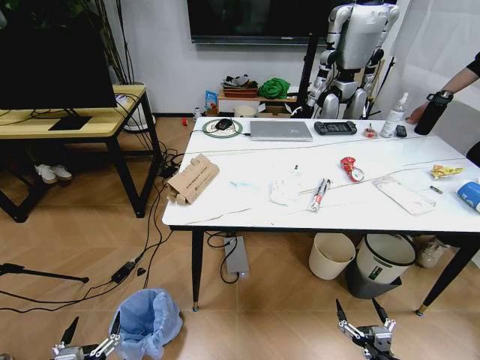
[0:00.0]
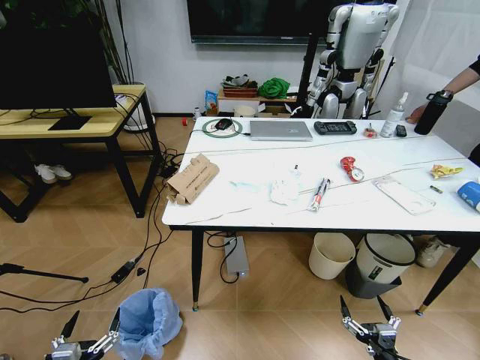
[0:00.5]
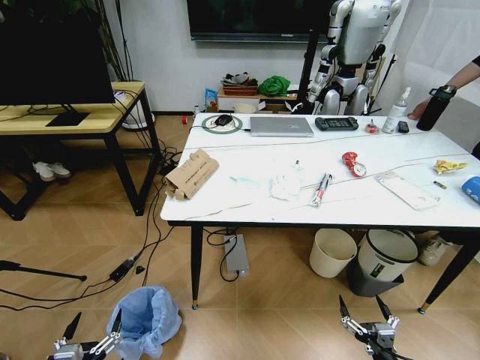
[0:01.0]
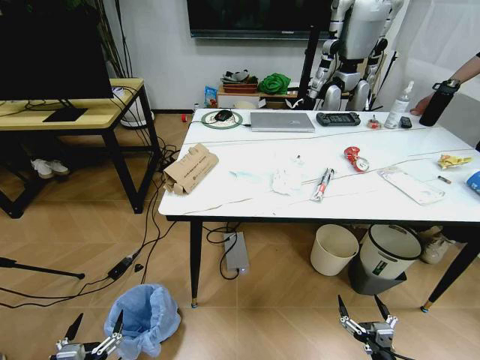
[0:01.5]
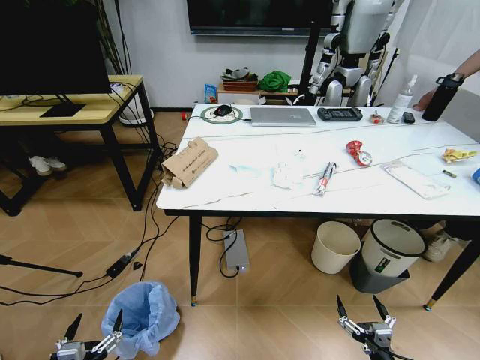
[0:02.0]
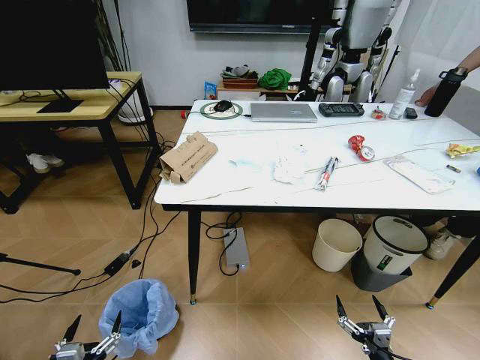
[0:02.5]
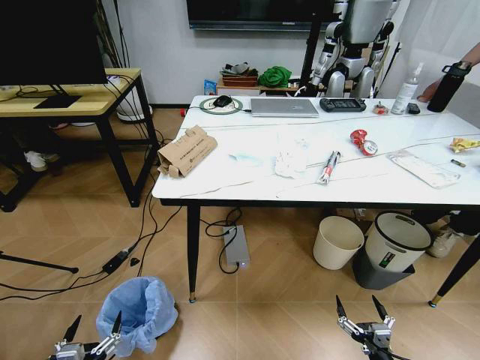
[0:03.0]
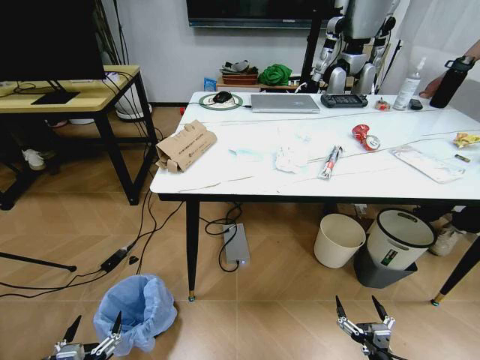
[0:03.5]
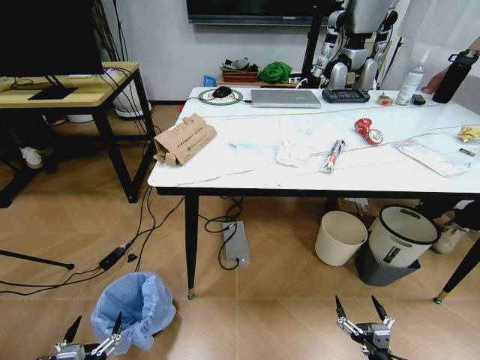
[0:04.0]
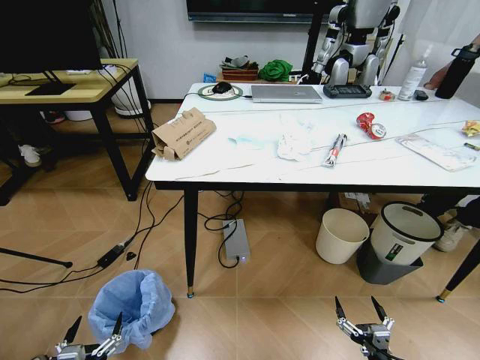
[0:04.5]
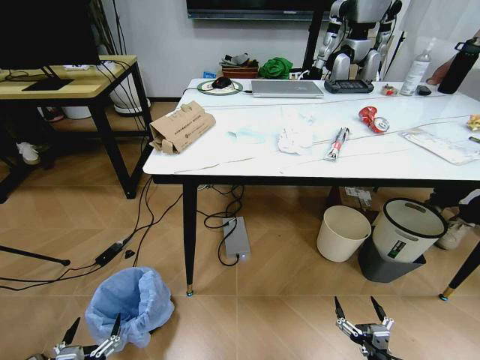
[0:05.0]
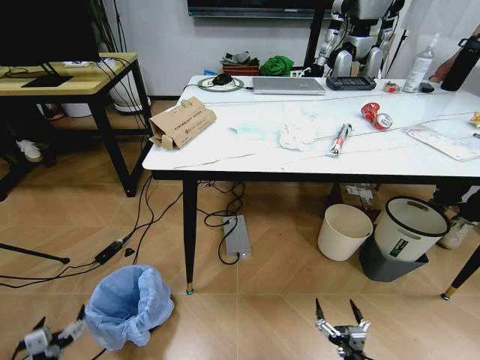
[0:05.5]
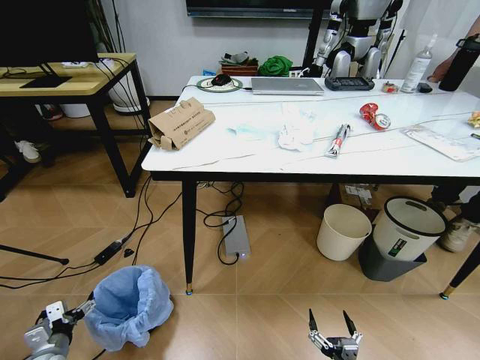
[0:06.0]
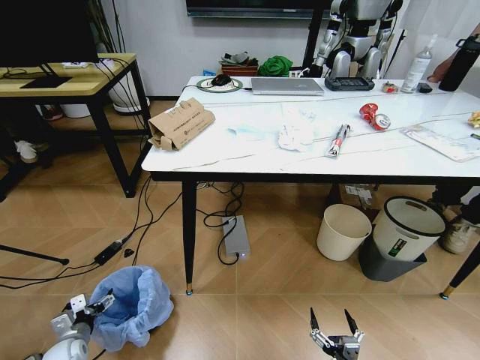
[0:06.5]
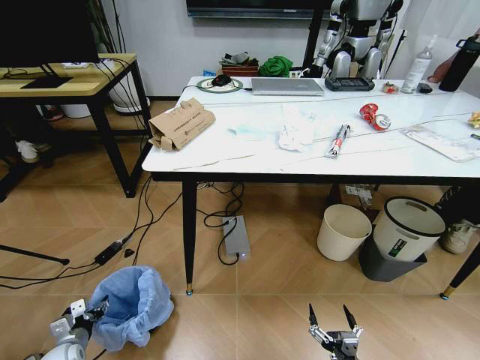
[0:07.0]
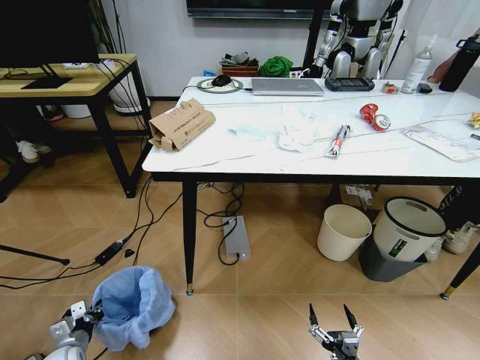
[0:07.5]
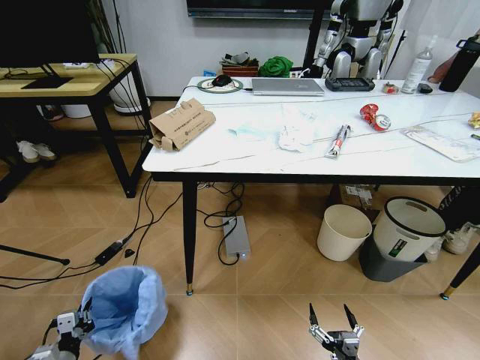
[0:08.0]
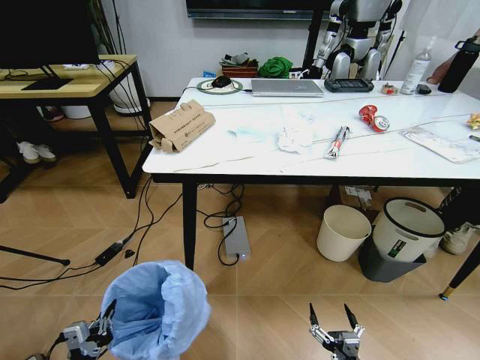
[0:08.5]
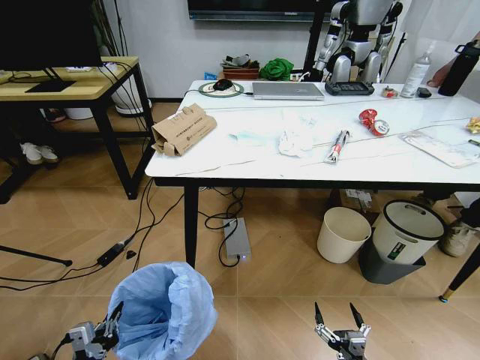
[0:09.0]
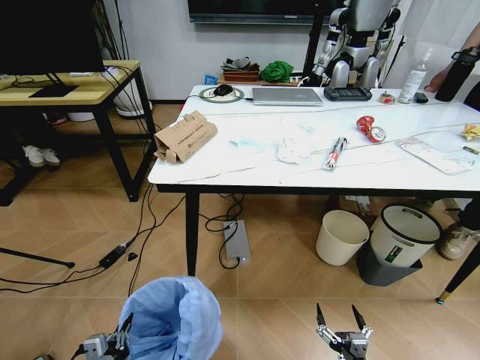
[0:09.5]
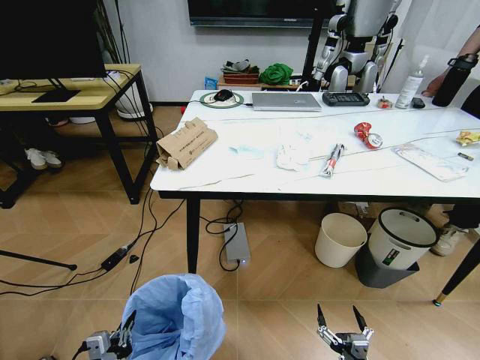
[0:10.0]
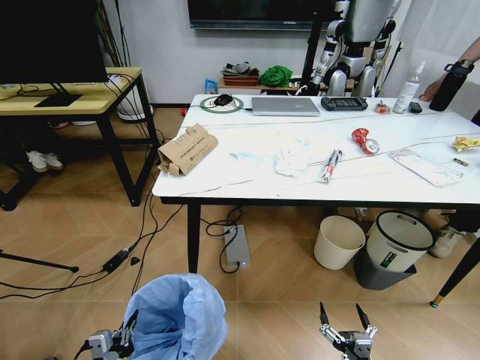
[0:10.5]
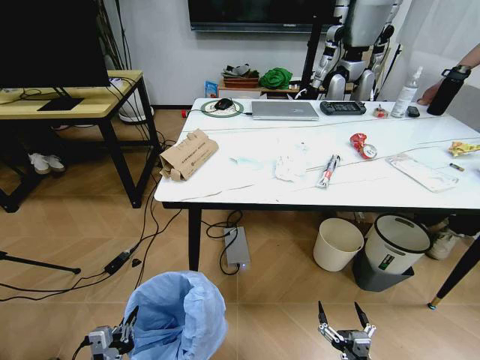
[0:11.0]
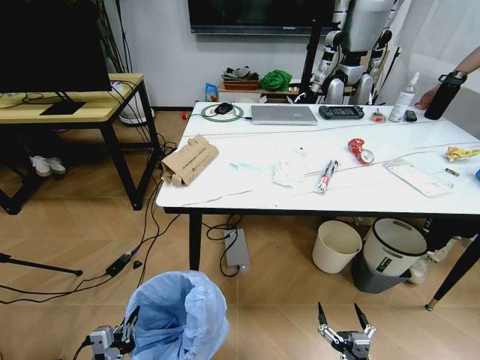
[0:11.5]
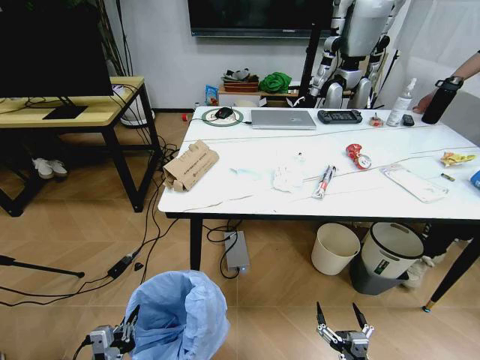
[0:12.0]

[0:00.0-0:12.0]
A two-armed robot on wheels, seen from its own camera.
Task of the whole recording: Pick up the trash bin and place the trash from the table into it.
0:04.0 to 0:06.0: The right gripper heads to the left, covering roughly 10 cm; the left gripper is displaced forward and to the left by approximately 20 cm.
0:06.0 to 0:08.0: The left gripper changes place by roughly 5 cm, and closes.
0:08.0 to 0:10.0: The left gripper shifts some 20 cm to the right, upward and backward.

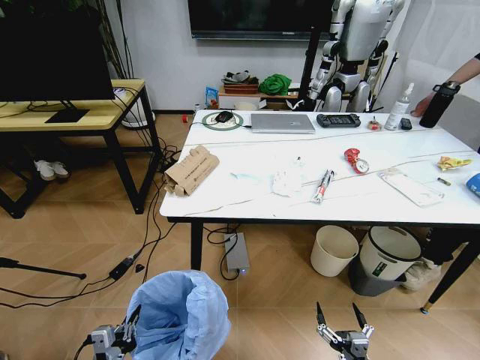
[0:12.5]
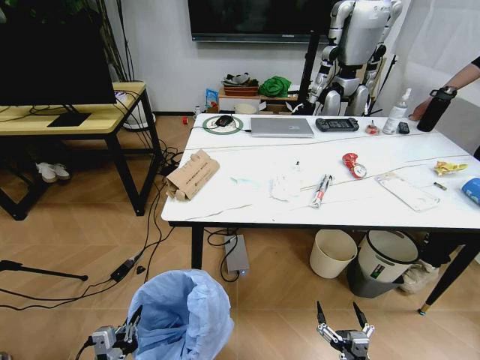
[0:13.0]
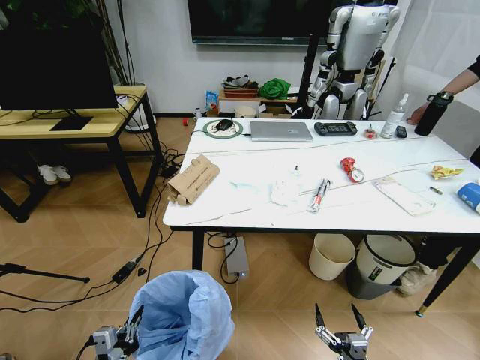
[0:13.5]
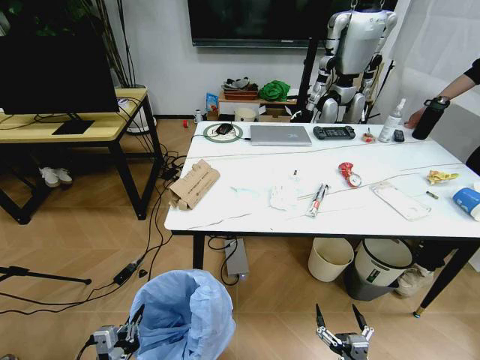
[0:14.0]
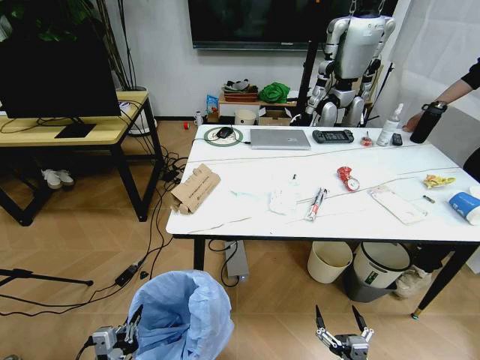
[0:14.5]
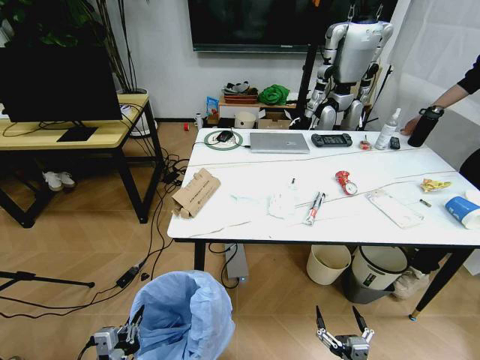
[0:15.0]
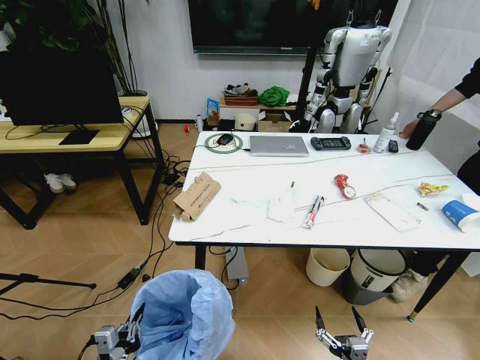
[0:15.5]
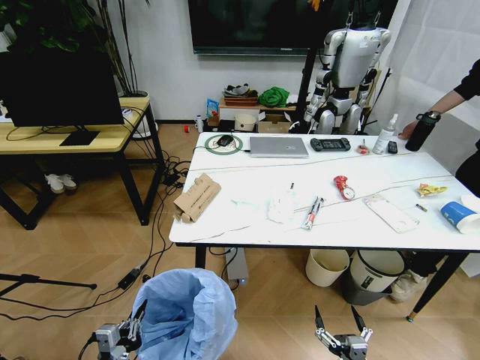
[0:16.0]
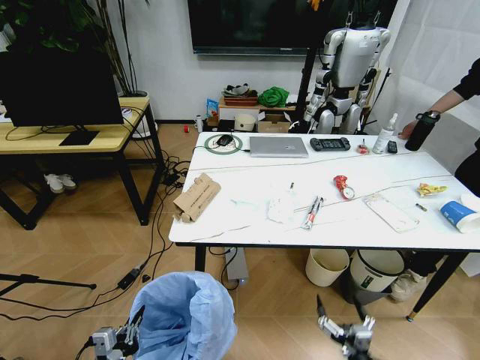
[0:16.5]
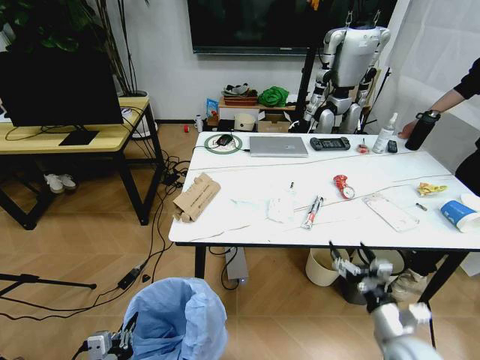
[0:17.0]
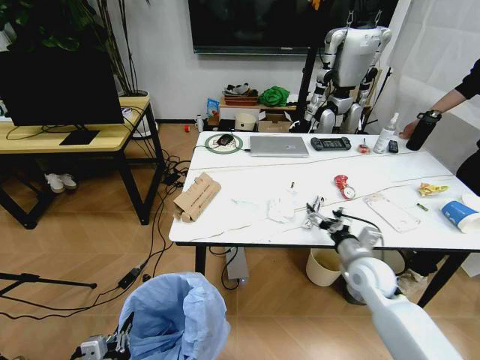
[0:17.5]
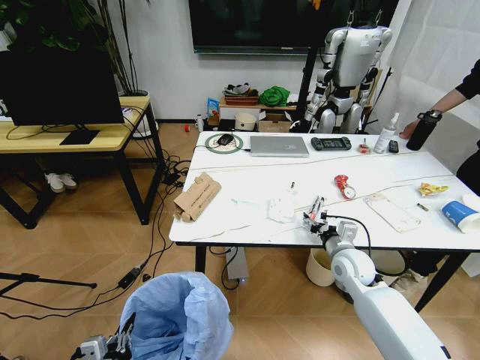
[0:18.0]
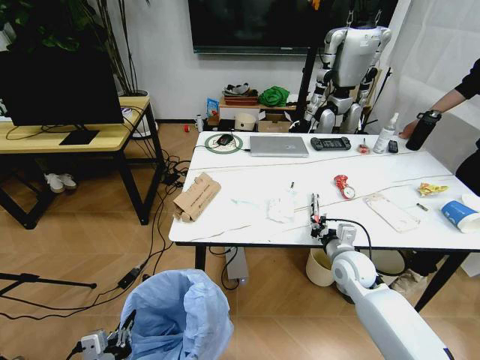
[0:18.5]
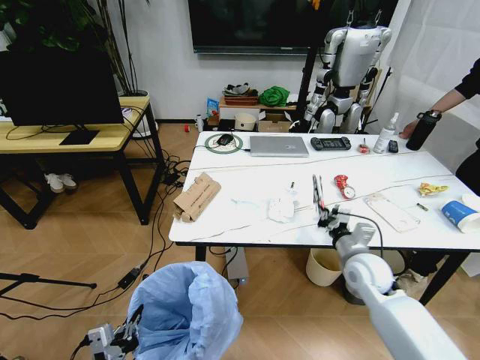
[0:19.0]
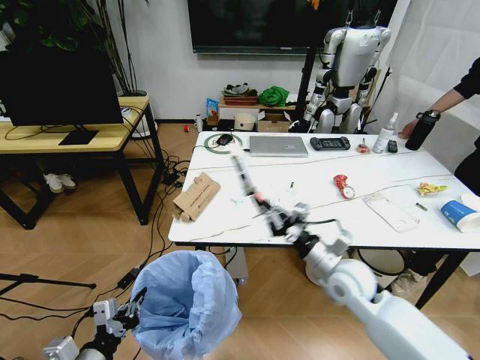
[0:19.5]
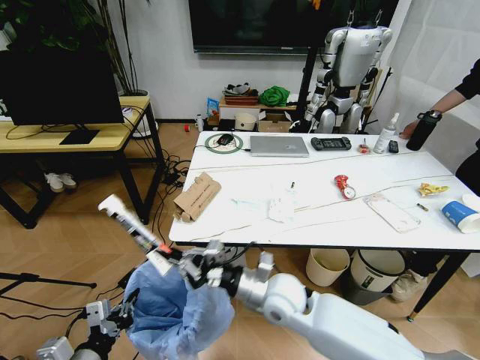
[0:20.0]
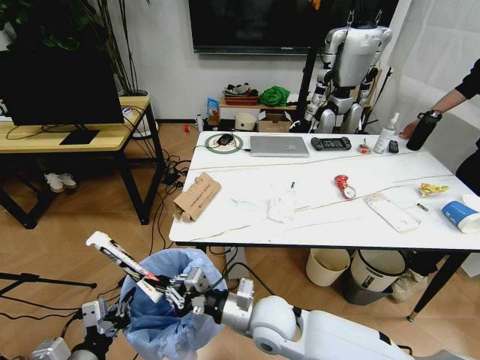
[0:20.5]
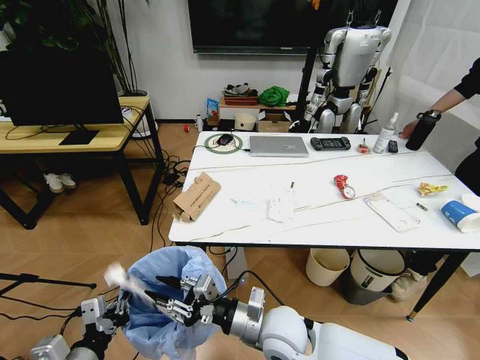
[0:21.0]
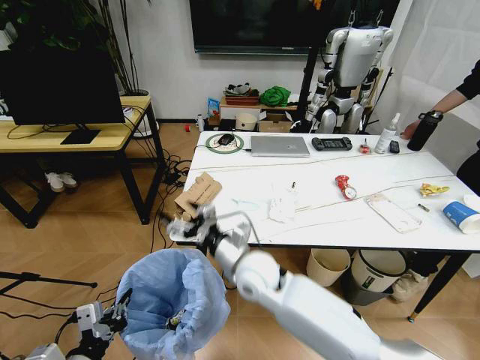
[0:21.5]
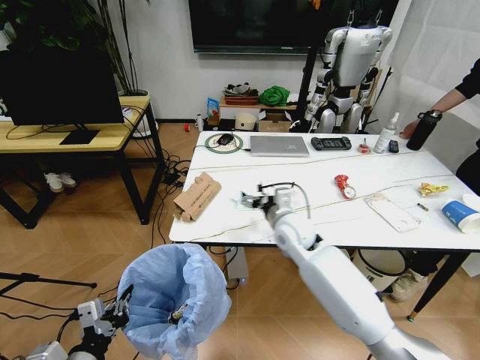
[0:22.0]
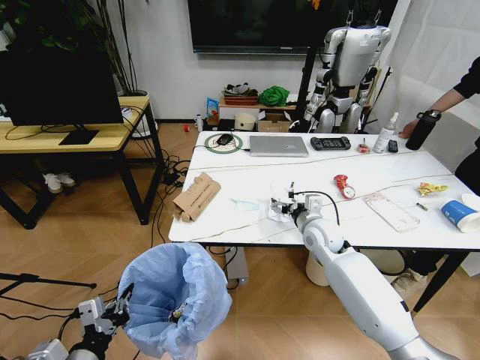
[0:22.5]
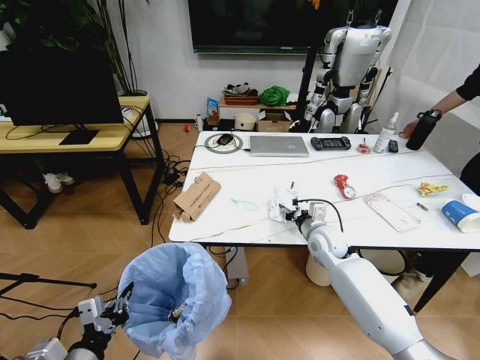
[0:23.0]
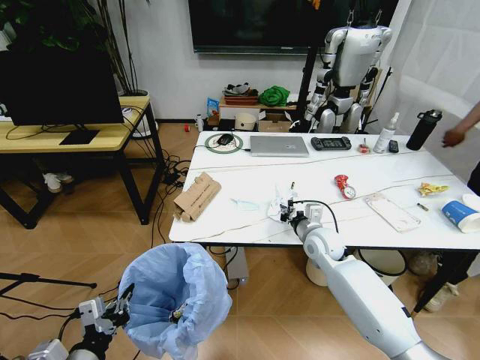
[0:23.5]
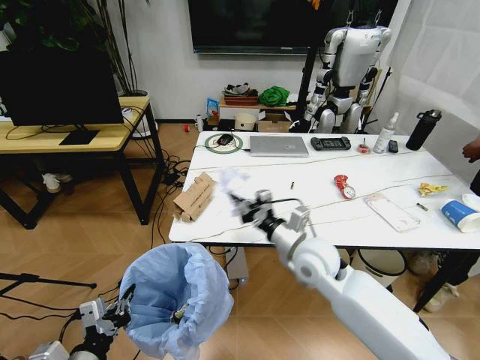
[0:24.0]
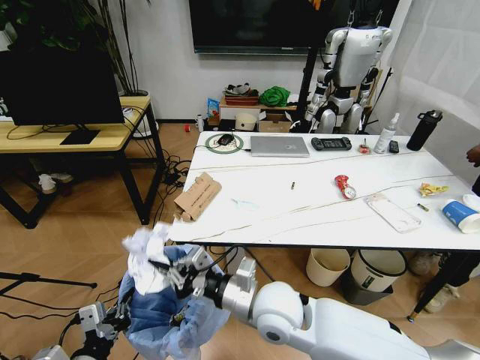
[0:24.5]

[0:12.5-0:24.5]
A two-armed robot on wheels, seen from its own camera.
Task of the whole recording: Pick up the trash bin and place the trash from the table into it.
0:16.5 to 0:18.5: The right gripper travels forward and upward by about 35 cm, and closes up. The left gripper ends up some 5 cm from where it was.
0:18.5 to 0:20.5: The right gripper goes about 25 cm to the left and backward; the left gripper shifts roughly 5 cm forward.
0:20.5 to 0:22.5: The right gripper travels forward and to the right by approximately 25 cm, and opens.
0:22.5 to 0:24.5: The right gripper goes approximately 25 cm backward and to the left, and closes.

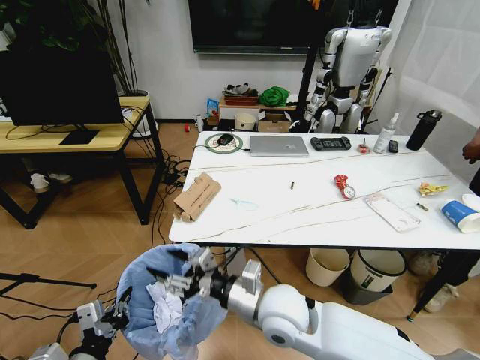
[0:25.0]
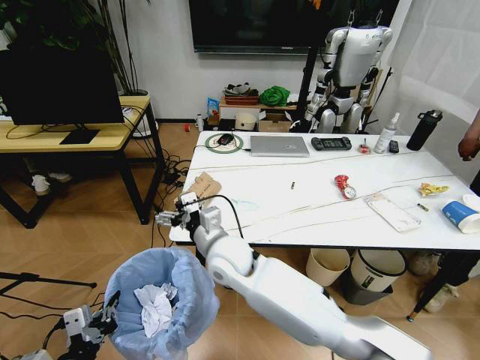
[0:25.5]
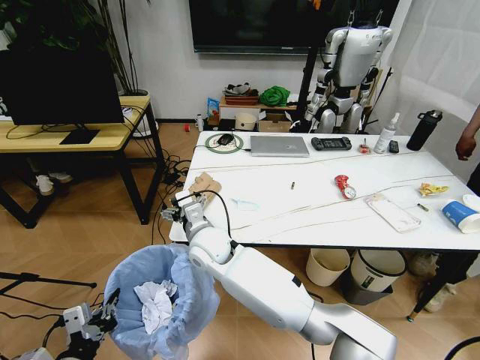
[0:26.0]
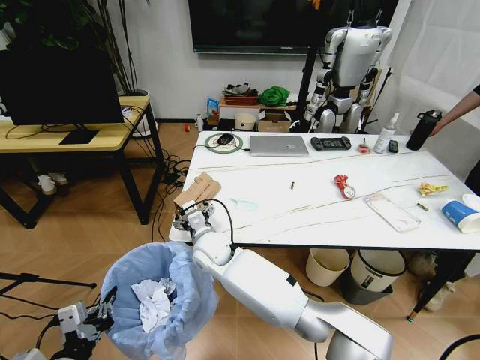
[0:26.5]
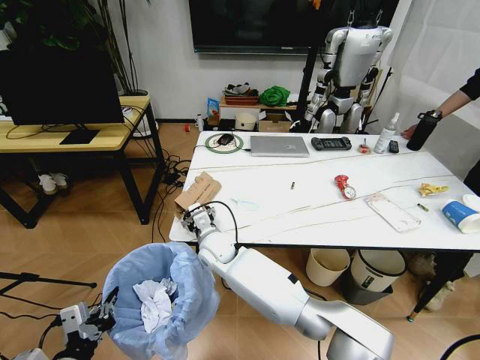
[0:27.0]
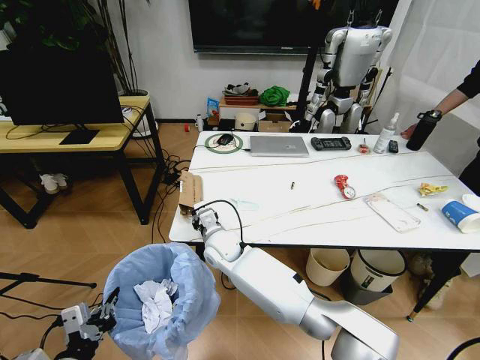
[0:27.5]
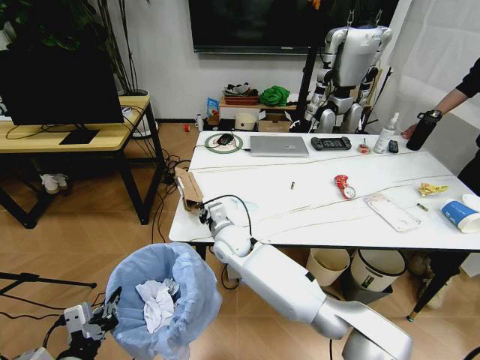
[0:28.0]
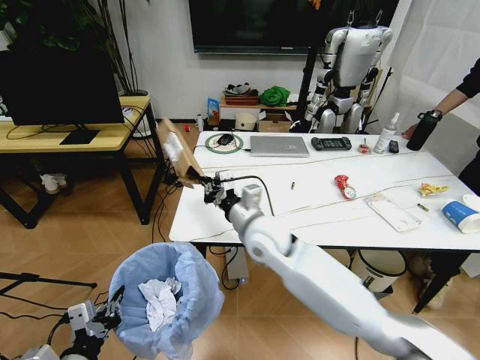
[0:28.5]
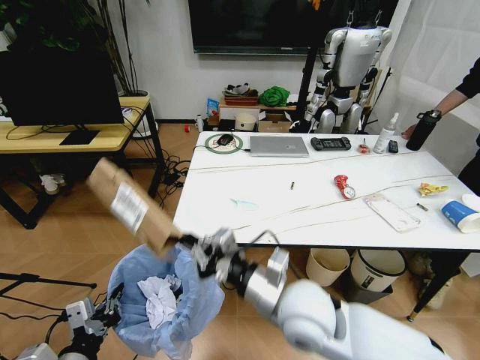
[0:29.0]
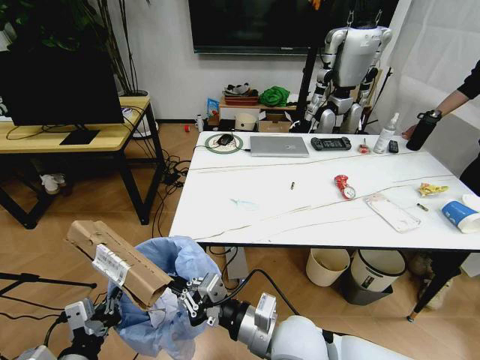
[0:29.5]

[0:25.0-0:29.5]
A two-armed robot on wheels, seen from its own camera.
Task of the whole recording: Pick up the trash bin and place the trash from the table into it.
0:25.0 to 0:27.0: The right gripper goes approximately 20 cm forward and to the left.
0:27.0 to 0:29.5: The right gripper goes roughly 30 cm backward and to the right, and closes its fingers.
